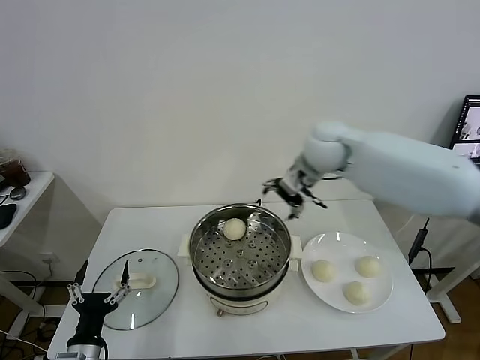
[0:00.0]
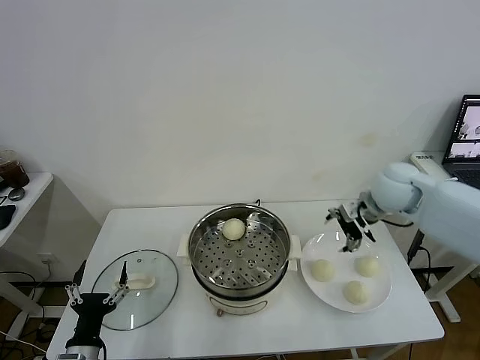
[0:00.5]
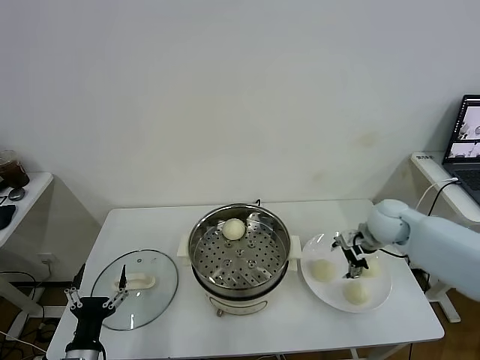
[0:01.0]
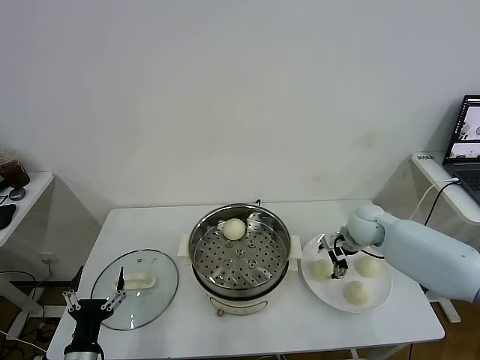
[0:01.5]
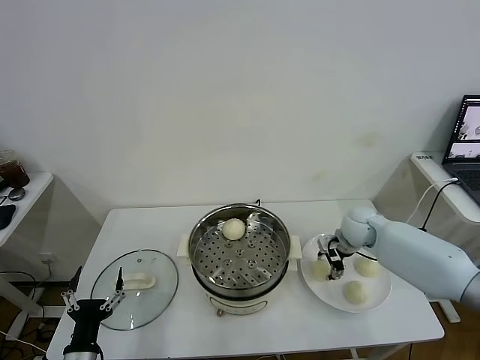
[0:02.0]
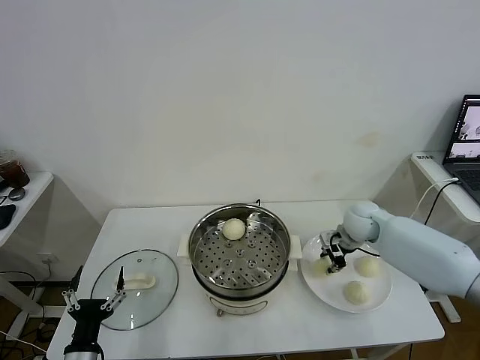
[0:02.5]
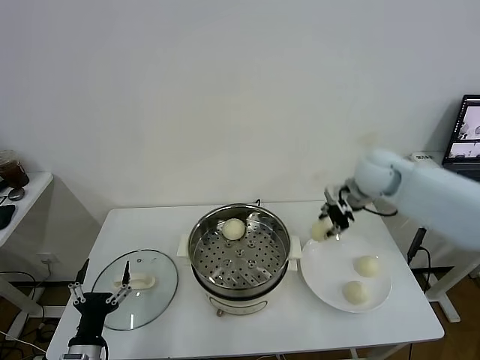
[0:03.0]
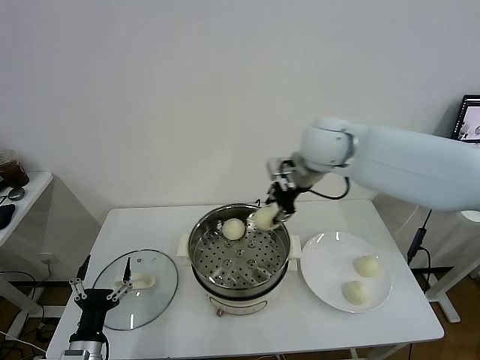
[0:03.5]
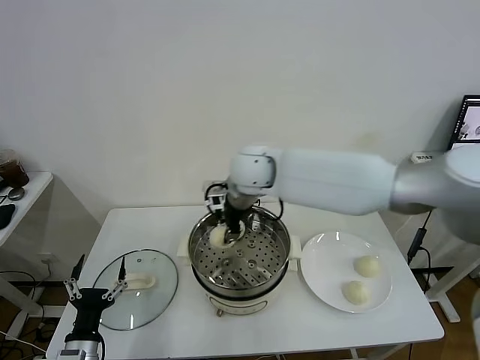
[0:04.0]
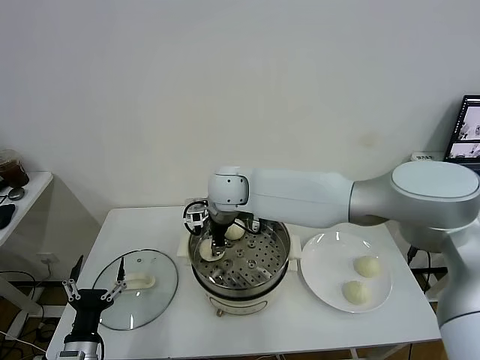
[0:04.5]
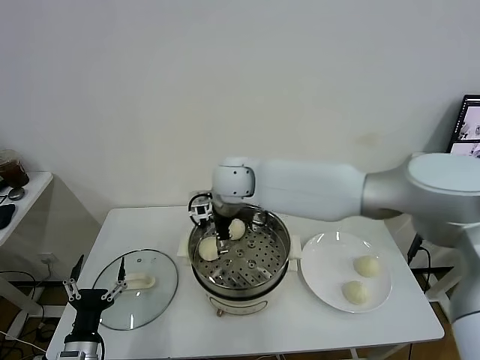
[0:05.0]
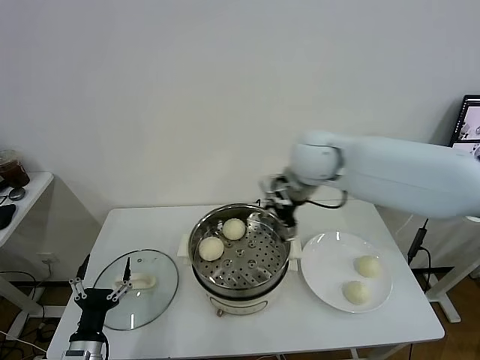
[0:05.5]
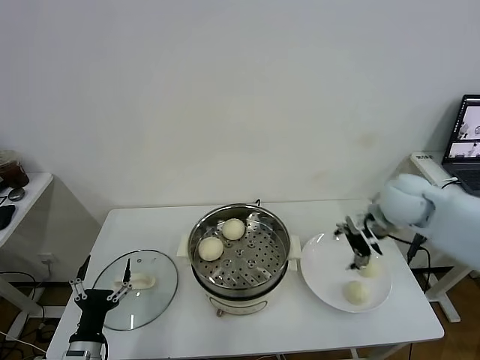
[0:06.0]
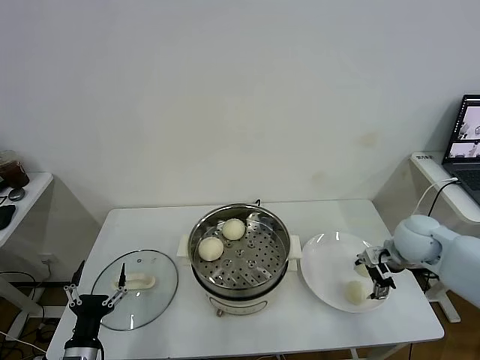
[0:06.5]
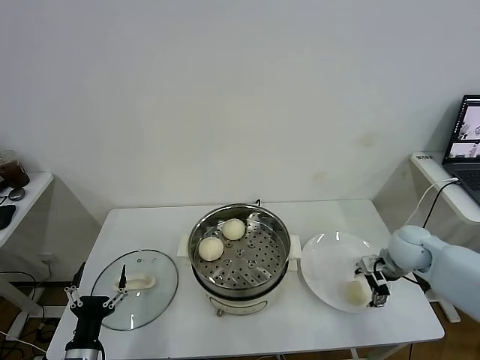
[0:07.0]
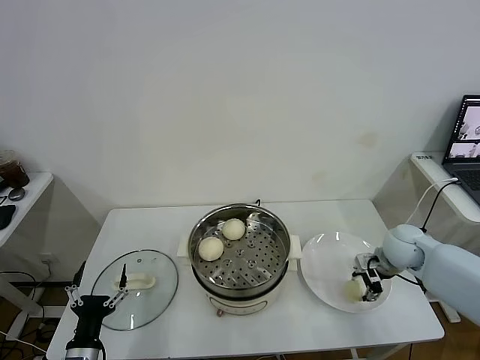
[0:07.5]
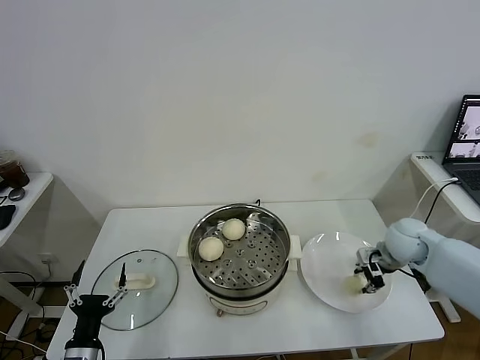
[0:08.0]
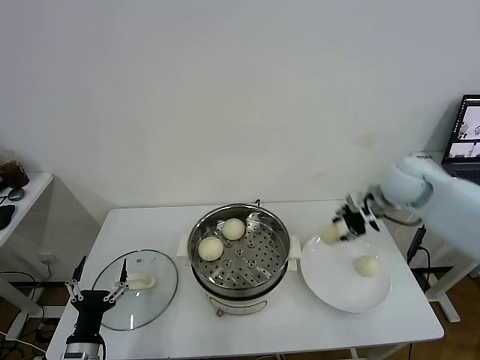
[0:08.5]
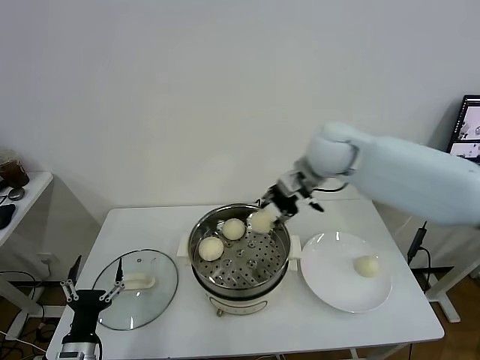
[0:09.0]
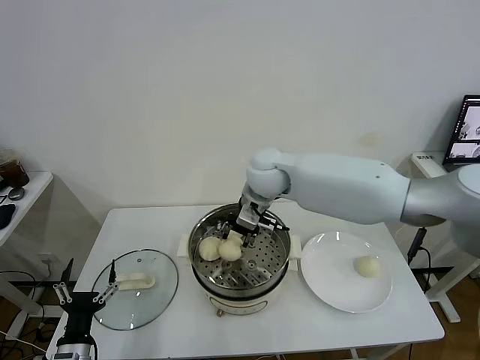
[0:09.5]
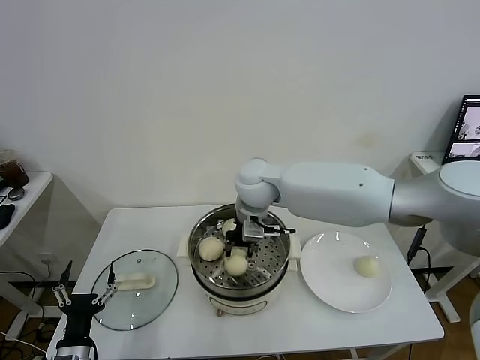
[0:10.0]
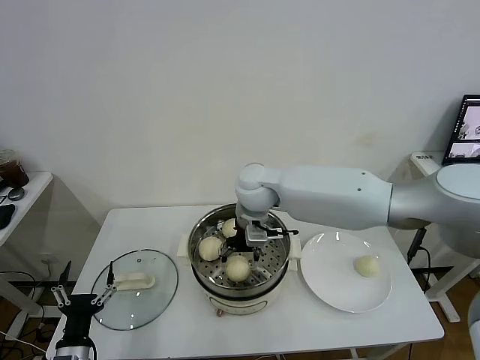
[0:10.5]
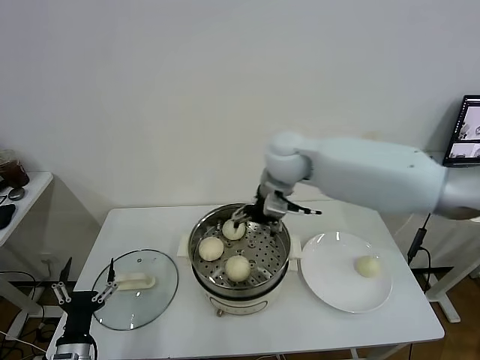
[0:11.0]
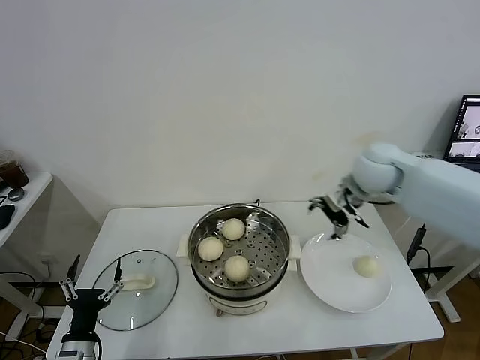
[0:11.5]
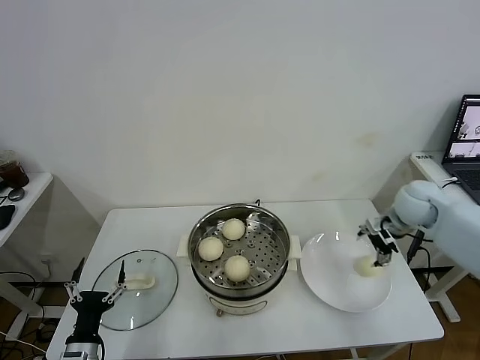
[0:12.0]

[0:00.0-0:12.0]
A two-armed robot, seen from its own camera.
Task of the whole recording: take steamed baozi put them in steamer.
Step, 0:00.0 to 0:02.0: Grasp the baozi in the plate with right gripper.
Step, 0:02.5 to 0:04.5: Place the baozi on the steamer with right gripper.
Step, 0:05.0 to 0:07.5: Grasp the baozi in the plate with right gripper.
Step, 0:08.0 to 0:10.5: Place the baozi on the steamer with right gripper.
0:00.0 to 0:02.0: The right gripper is displaced downward and to the right by some 25 cm, and closes.
0:02.0 to 0:04.0: The right gripper travels to the left and upward by approximately 35 cm, and closes its fingers.
0:04.0 to 0:06.0: The right gripper goes roughly 30 cm to the right, and opens its fingers.
0:06.0 to 0:08.0: The right gripper heads downward and to the right, covering about 15 cm, and closes its fingers.
0:08.0 to 0:10.0: The right gripper travels to the left by approximately 35 cm.
0:10.0 to 0:12.0: The right gripper shifts approximately 35 cm to the right, and opens up.

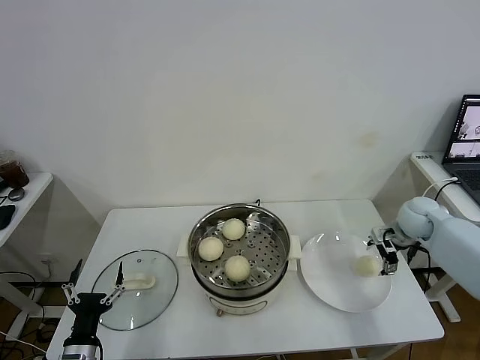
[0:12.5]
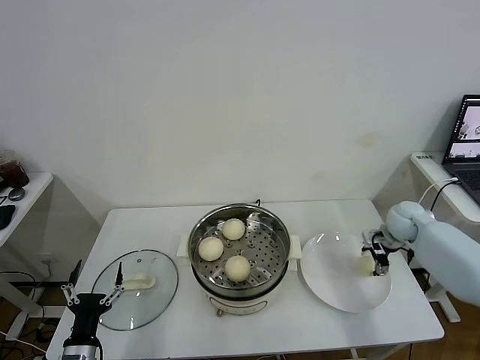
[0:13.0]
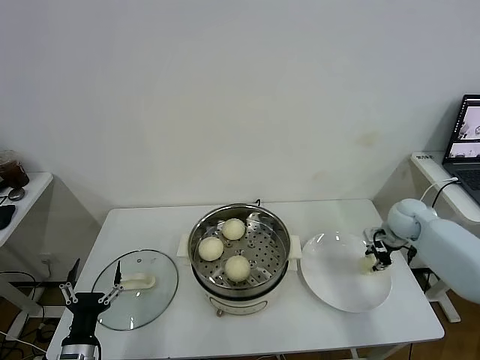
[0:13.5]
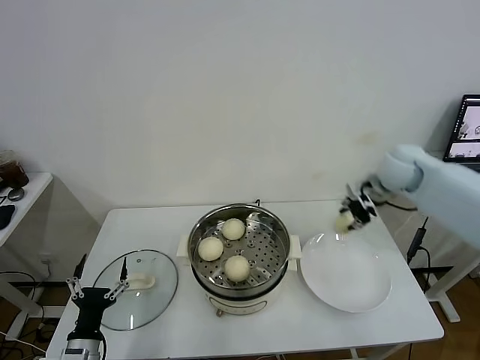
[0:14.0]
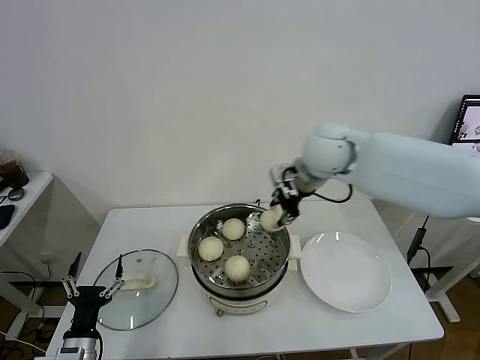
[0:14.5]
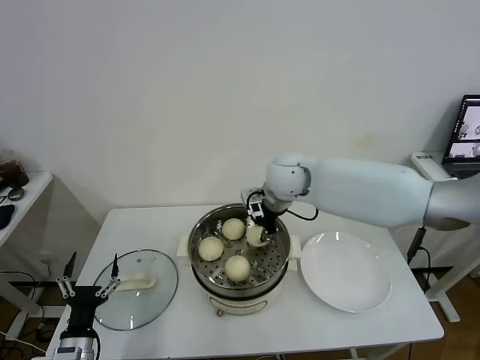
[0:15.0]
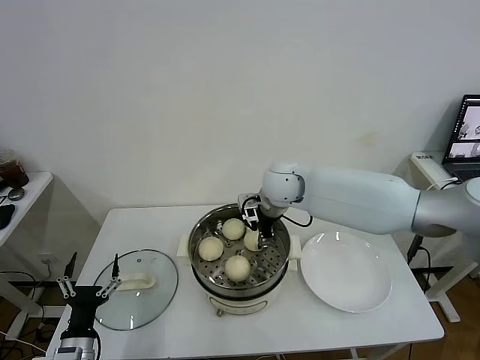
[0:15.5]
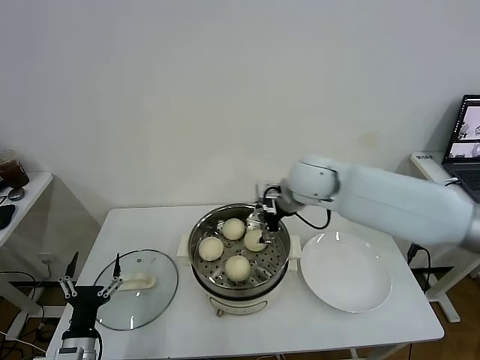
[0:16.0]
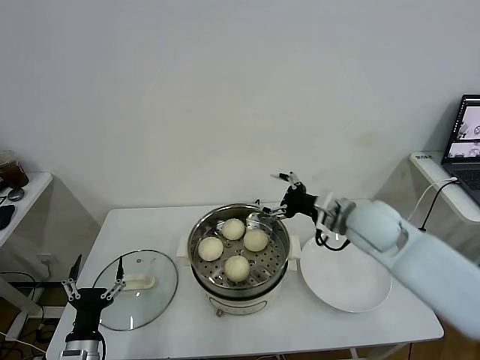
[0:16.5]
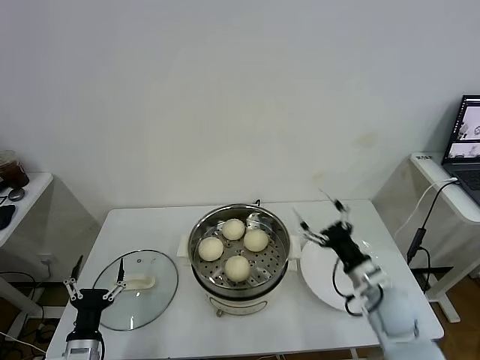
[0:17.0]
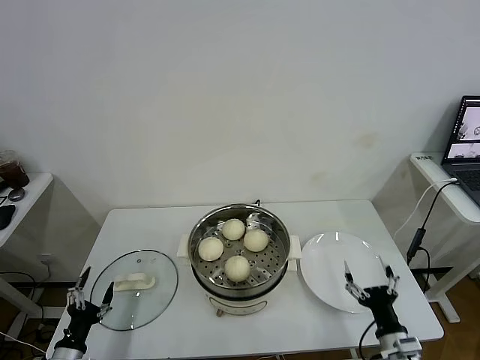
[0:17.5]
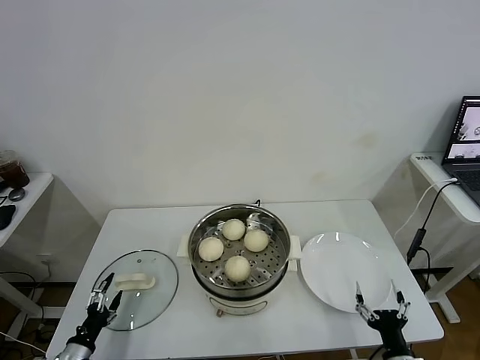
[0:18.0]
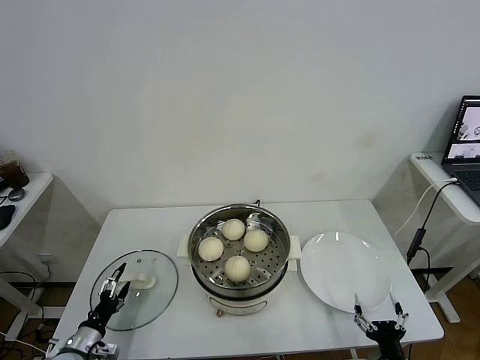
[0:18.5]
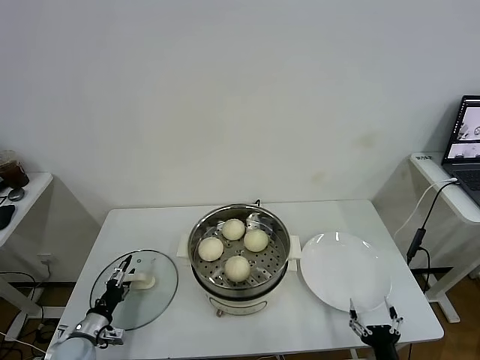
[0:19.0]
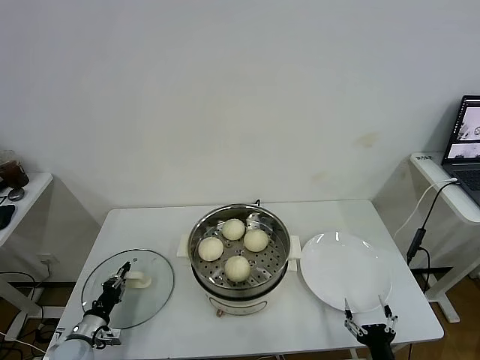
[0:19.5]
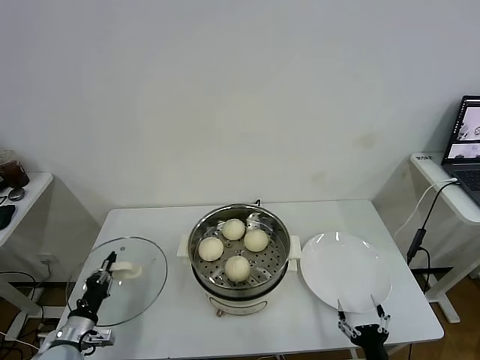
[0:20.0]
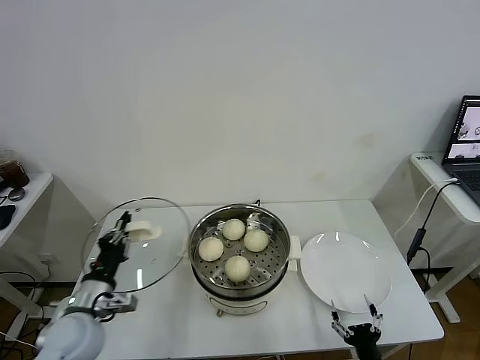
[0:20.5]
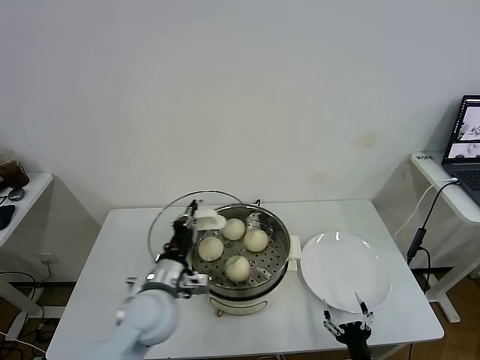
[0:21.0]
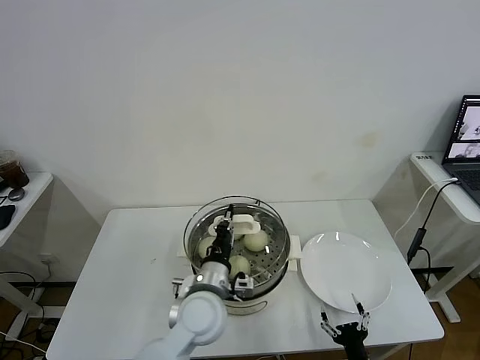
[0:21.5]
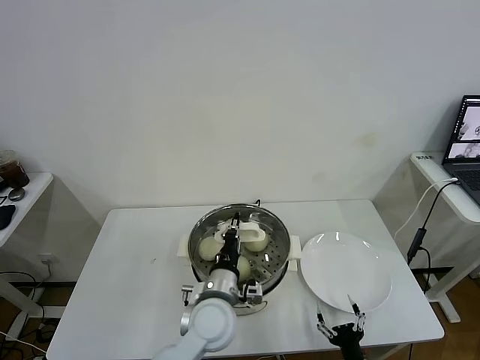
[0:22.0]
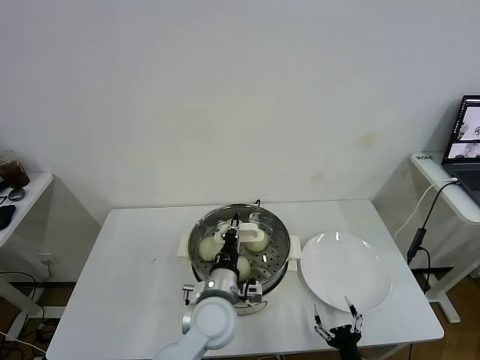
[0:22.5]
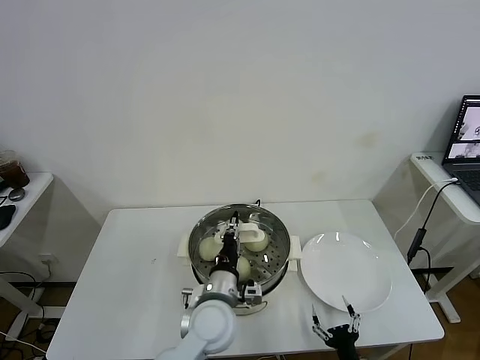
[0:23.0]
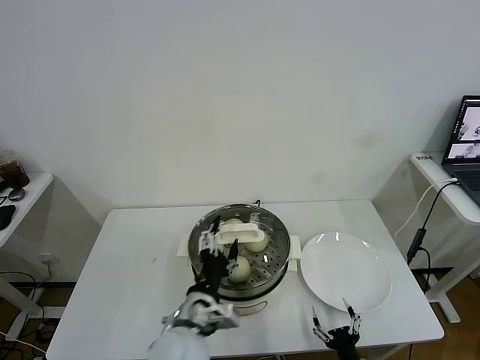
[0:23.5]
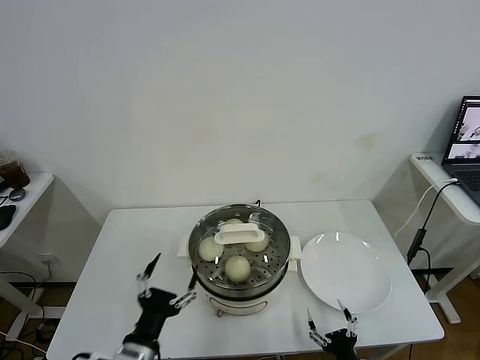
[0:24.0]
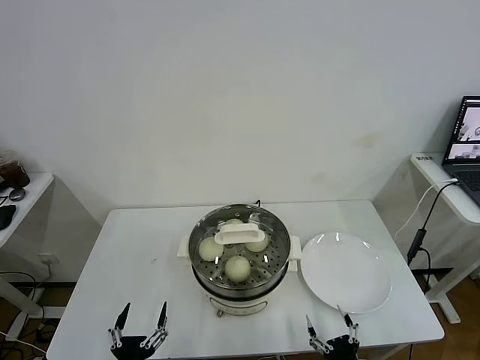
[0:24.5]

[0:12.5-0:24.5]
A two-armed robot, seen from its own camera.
Task of the whole recording: take steamed baozi put them in steamer.
Step, 0:13.5 to 0:15.5: Place the baozi on the steamer with right gripper.
Step, 0:16.0 to 0:19.5: Grasp the pot lid with left gripper.
Step, 0:20.0 to 0:23.0: Place the pot lid on the steamer with left gripper.
0:12.5 to 0:14.5: The right gripper travels to the left and upward by some 35 cm, and closes up.
0:14.5 to 0:16.5: The right gripper goes approximately 15 cm downward, backward and to the right, and opens its fingers.
0:16.5 to 0:18.5: The right gripper heads backward and downward, covering roughly 40 cm. Meanwhile the left gripper shifts approximately 10 cm to the left and downward.
0:18.5 to 0:20.5: The left gripper shifts roughly 20 cm upward and to the right, and closes its fingers.
0:20.5 to 0:22.5: The left gripper is displaced to the right by approximately 25 cm.
0:22.5 to 0:24.5: The left gripper goes about 30 cm backward and to the left, and opens up.
